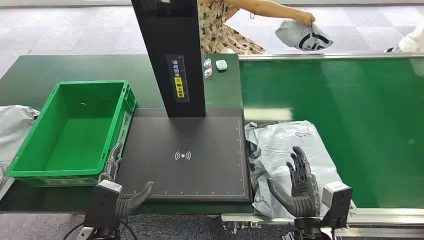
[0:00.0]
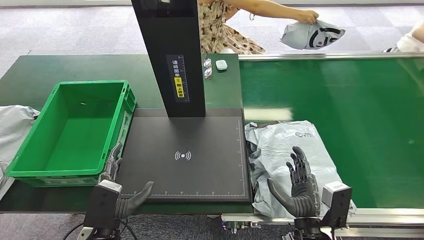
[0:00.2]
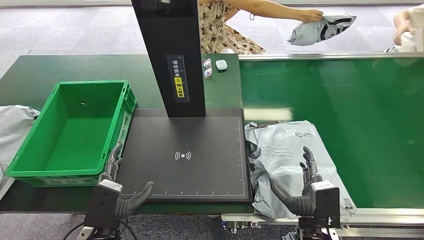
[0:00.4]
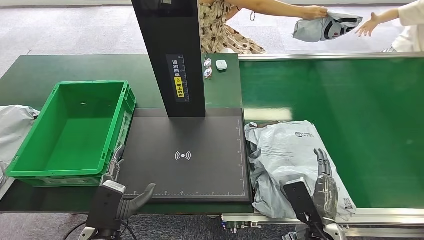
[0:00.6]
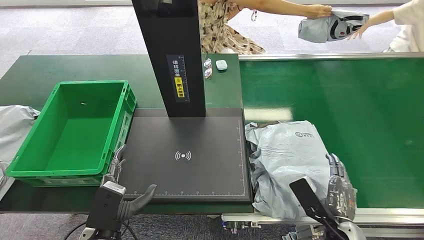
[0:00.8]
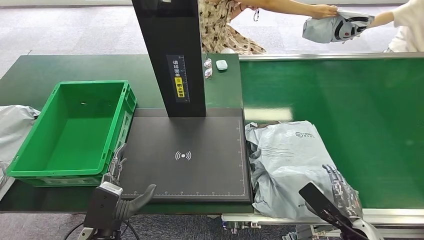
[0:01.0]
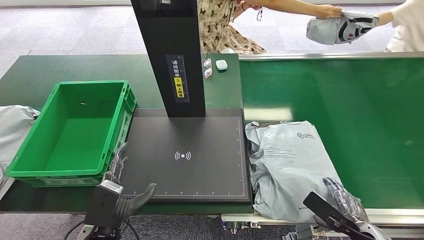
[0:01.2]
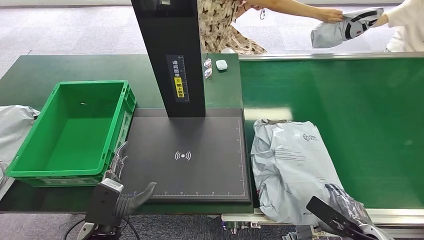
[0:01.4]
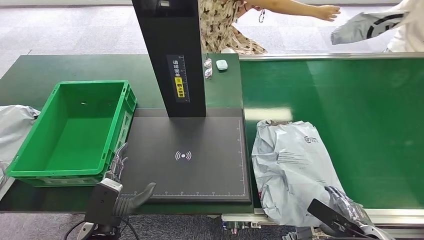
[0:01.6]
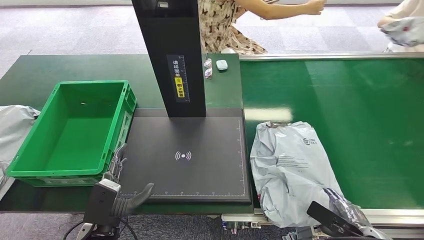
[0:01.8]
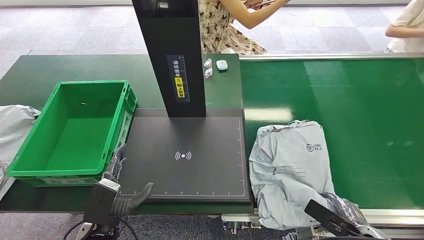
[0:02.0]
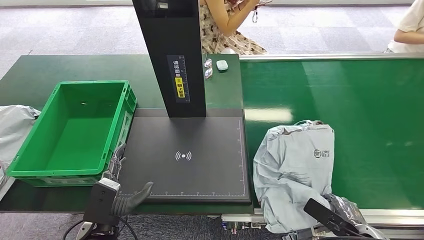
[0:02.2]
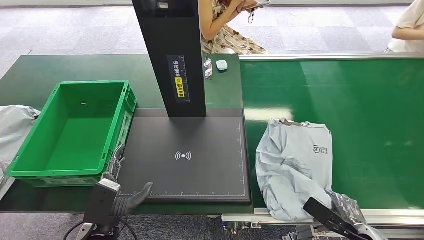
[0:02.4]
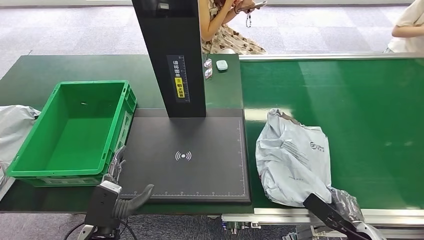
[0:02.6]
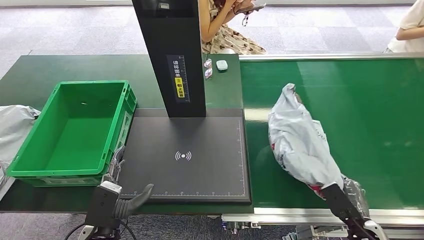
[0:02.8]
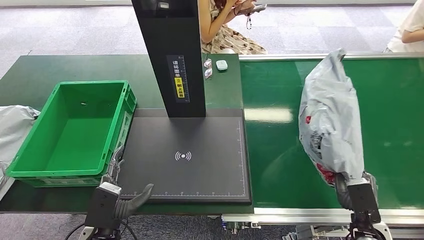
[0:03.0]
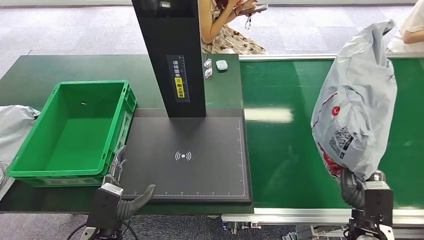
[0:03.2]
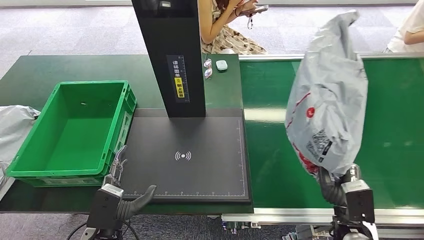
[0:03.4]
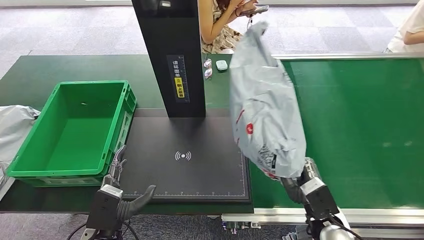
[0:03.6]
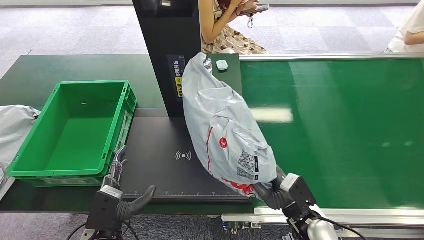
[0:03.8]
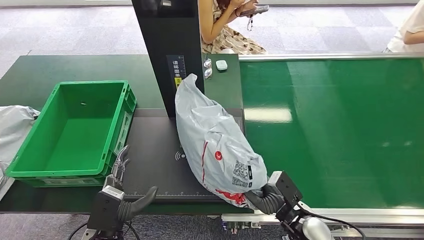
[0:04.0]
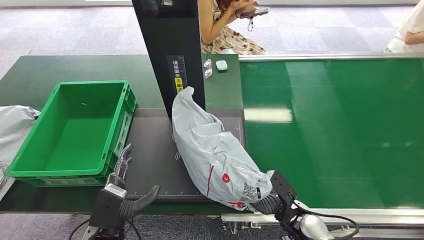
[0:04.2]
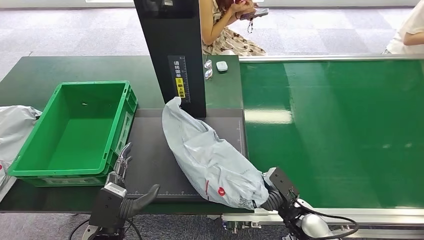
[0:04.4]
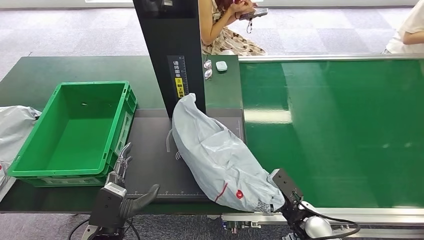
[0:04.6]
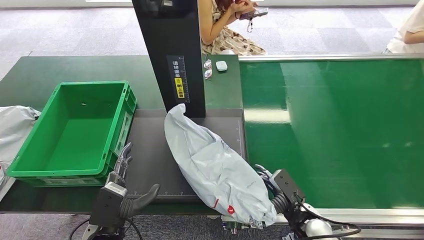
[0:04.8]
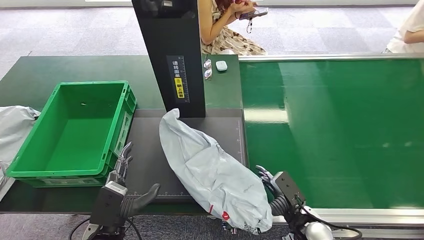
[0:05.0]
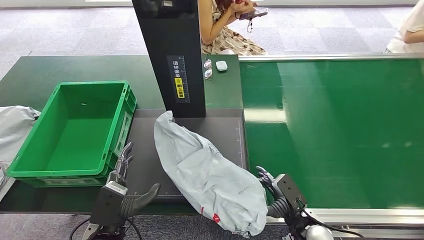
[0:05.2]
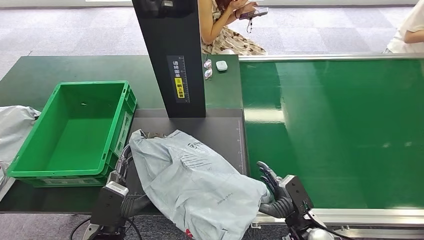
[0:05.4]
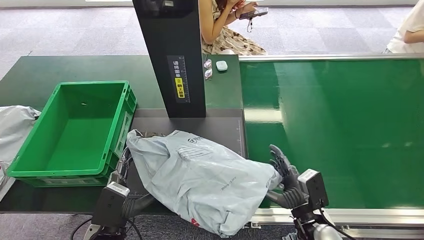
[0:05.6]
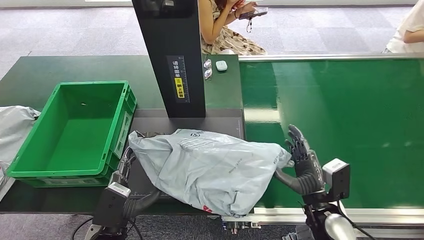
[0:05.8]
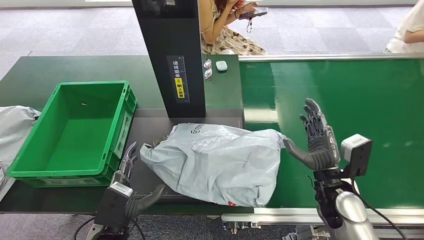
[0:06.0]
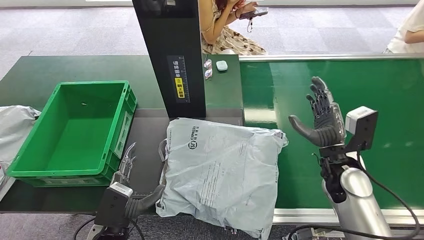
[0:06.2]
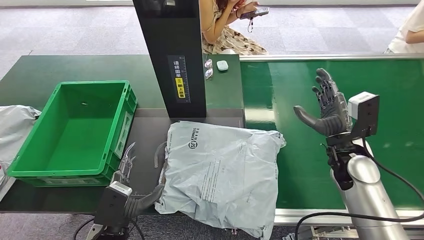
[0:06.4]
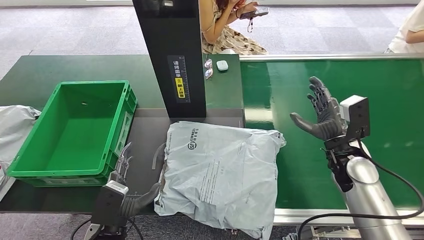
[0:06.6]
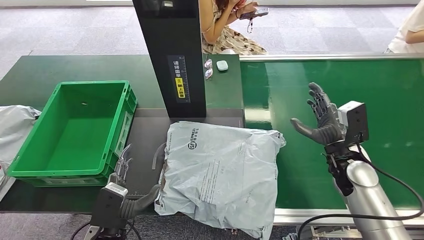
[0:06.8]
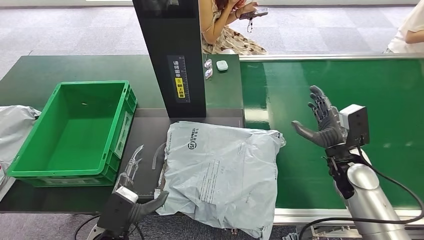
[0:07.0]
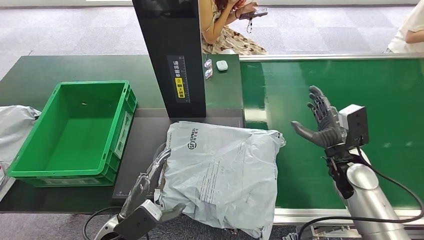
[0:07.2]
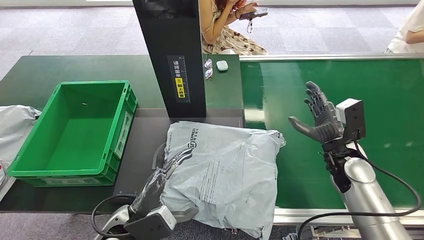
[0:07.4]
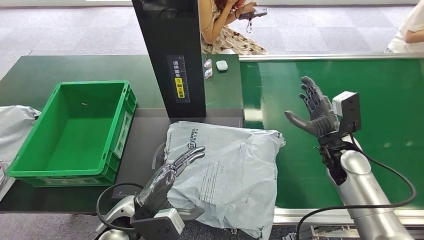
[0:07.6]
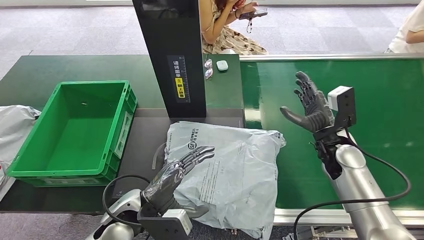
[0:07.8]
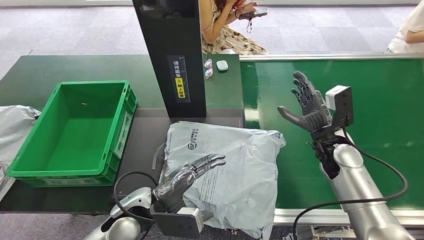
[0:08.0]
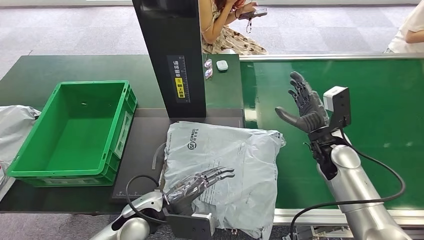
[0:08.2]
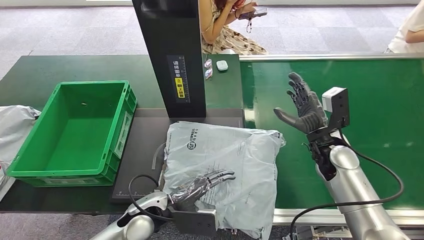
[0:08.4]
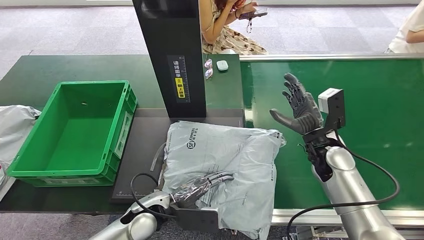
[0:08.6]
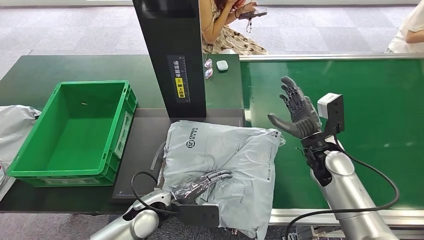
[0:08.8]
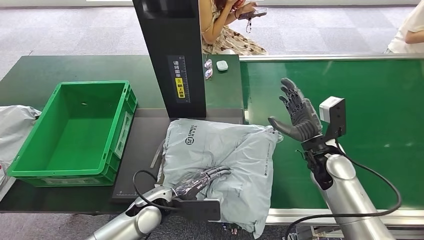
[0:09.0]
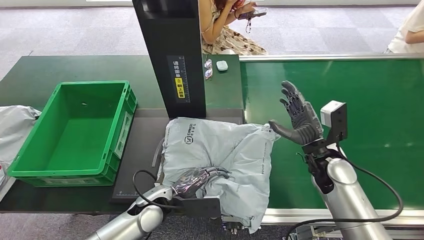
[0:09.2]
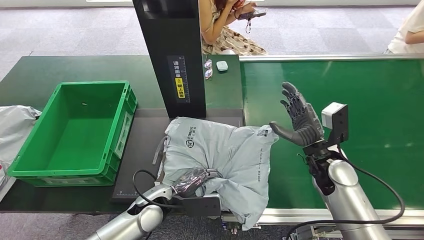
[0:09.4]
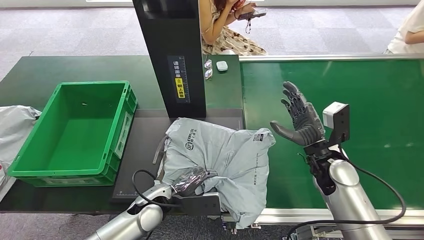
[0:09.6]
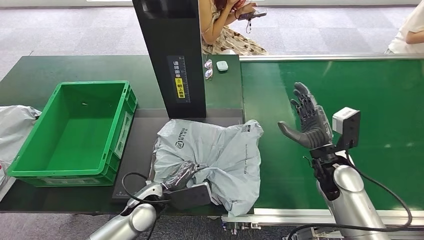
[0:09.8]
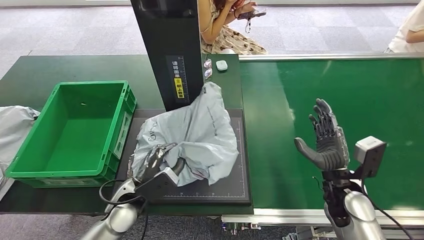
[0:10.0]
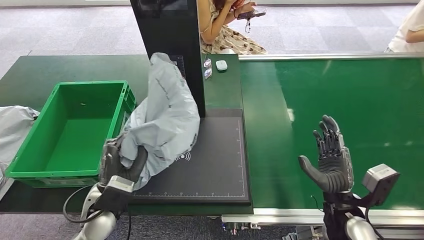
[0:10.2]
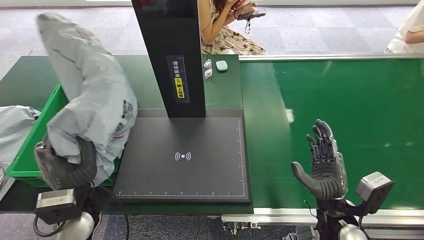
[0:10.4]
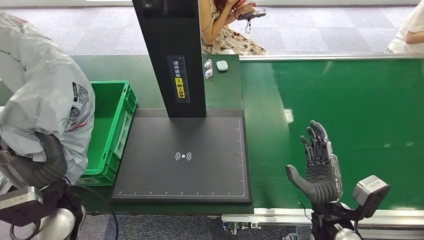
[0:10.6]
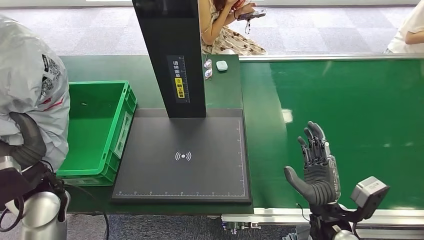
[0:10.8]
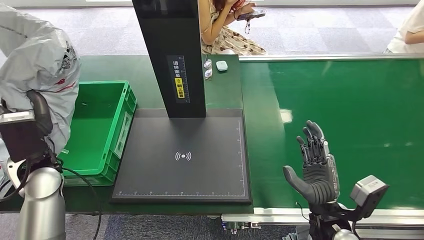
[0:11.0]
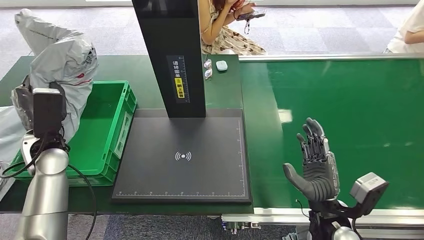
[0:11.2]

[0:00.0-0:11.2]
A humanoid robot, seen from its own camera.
Step, 0:00.0 to 0:03.2: Pick up the package from the conveyor belt.
Step, 0:03.4 to 0:06.8: Place the package onto the inbound machine.
Step, 0:07.2 to 0:10.6: Pick up the package from the inbound machine.
0:06.4 to 0:08.0: The left hand shifts some 10 cm upward and to the right.

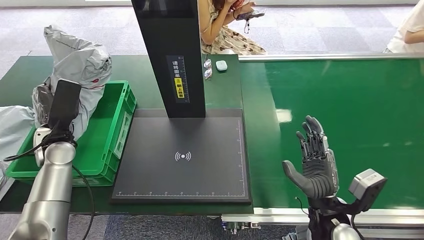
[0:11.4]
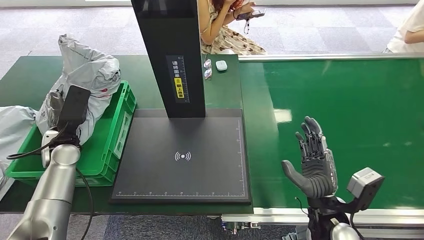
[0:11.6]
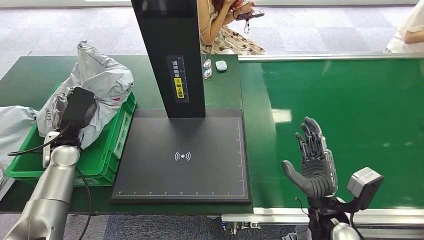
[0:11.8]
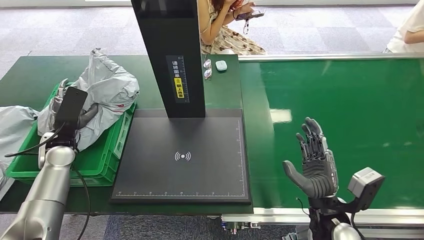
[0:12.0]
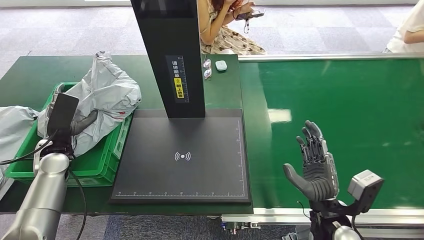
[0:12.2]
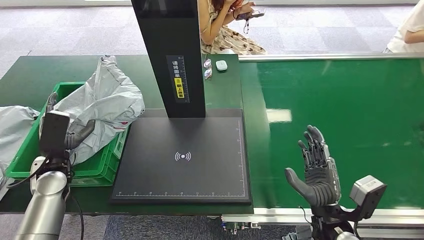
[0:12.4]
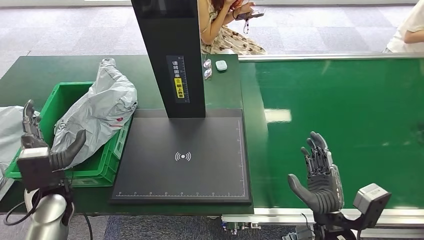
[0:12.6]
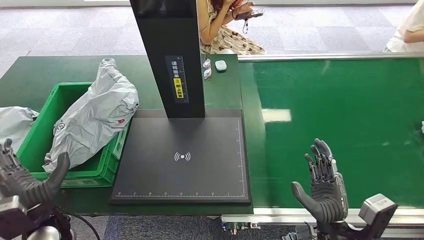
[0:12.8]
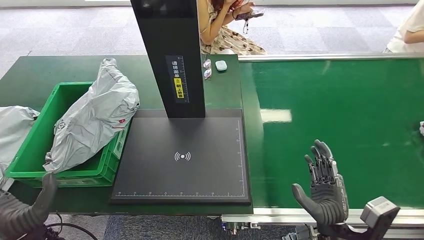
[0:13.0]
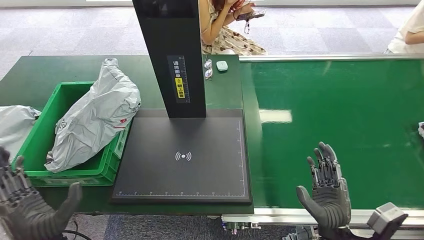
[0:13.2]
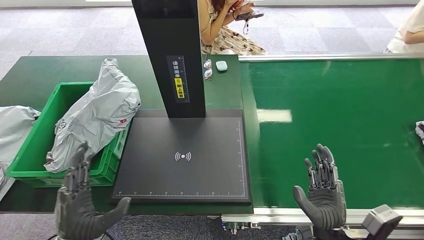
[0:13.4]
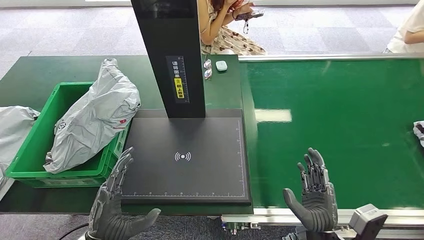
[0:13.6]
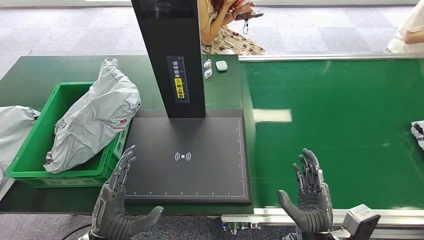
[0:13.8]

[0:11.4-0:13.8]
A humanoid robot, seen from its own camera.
Step, 0:11.4 to 0:13.8: Place the package into the parcel locker.
0:11.4 to 0:12.6: The left hand goes some 10 cm backward and downward.
0:12.6 to 0:13.8: The right hand moves roughly 5 cm, while the left hand travels to the right and backward by approximately 20 cm.

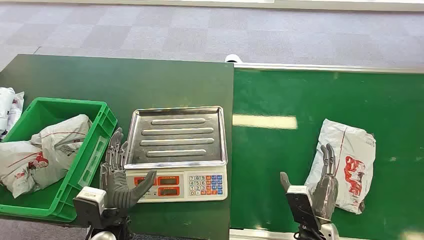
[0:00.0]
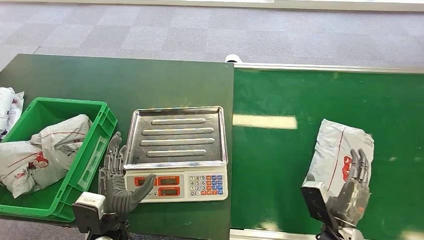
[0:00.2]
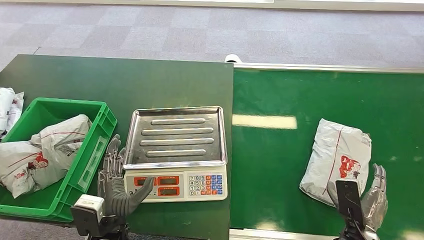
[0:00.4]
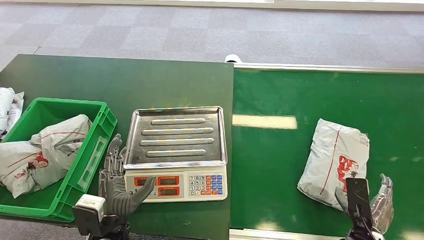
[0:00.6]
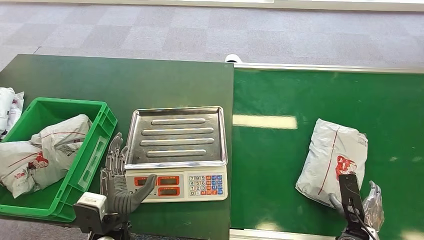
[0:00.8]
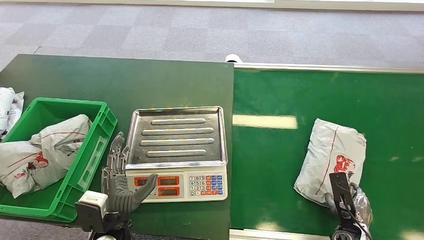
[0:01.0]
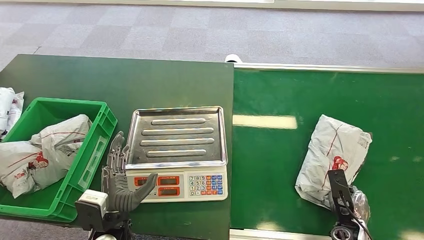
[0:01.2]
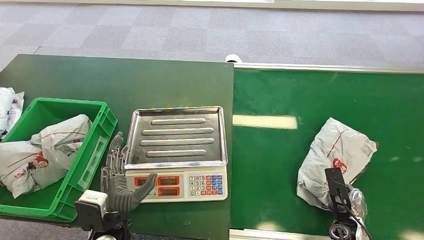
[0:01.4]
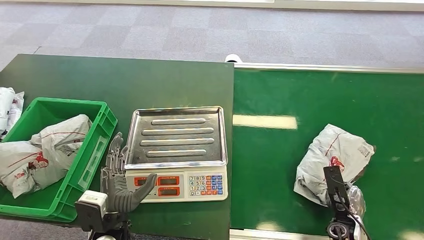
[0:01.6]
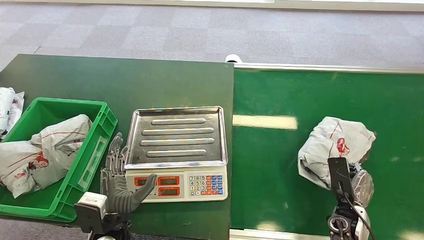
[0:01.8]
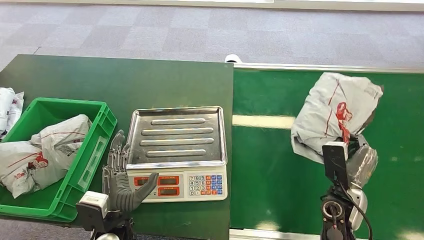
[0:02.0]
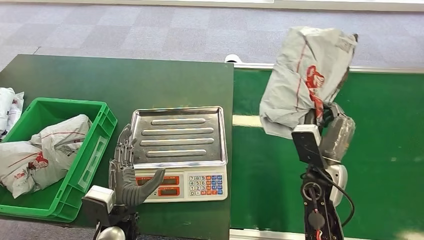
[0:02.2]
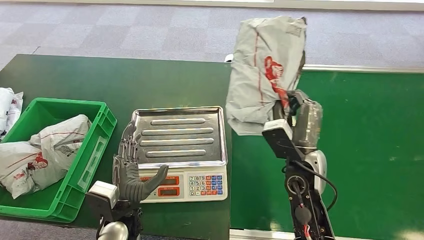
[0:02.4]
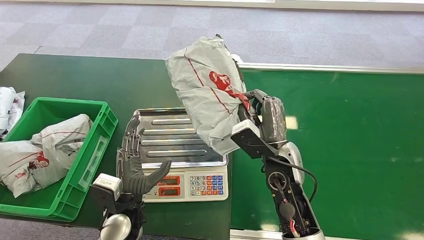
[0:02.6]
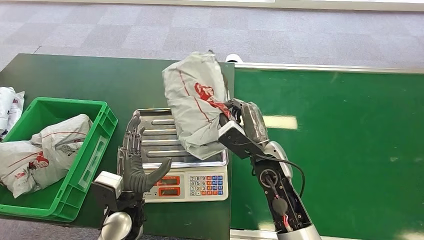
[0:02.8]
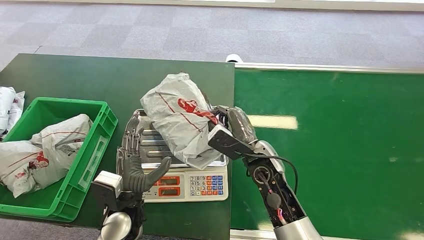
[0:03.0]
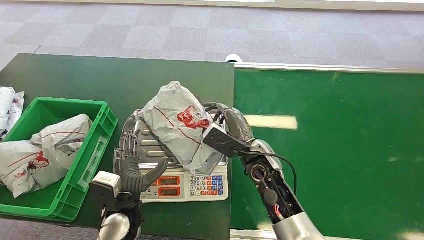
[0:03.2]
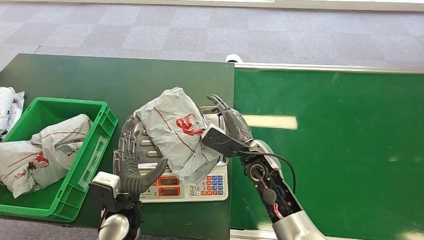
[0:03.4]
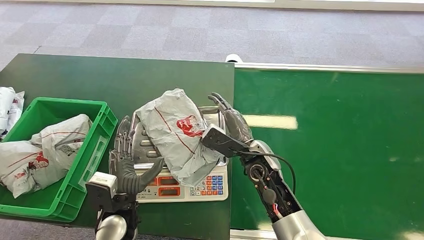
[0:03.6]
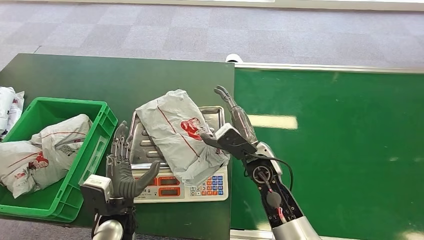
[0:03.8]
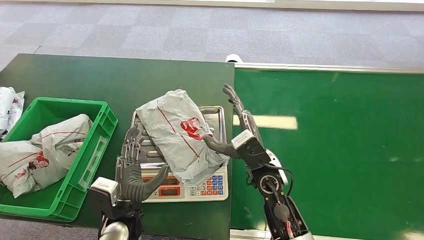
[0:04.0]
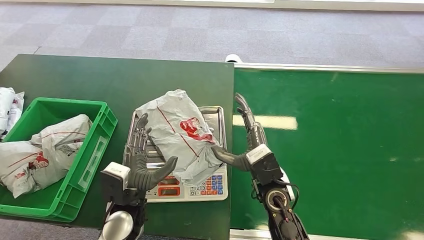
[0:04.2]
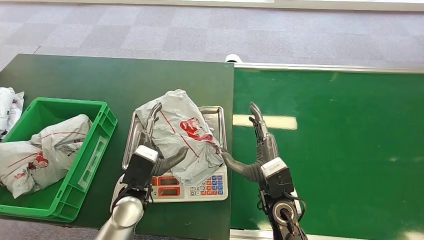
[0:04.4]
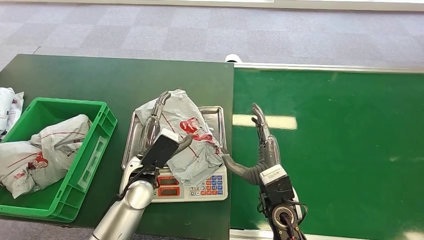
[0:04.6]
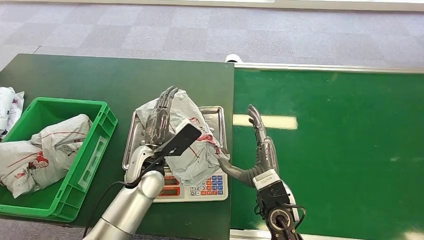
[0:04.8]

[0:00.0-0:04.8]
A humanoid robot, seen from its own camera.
Step, 0:00.0 to 0:02.2: Pick up the package from the conveyor belt.
Step, 0:02.4 to 0:04.0: Place the package onto the inbound machine.
0:01.6 to 0:03.2: The right hand moves to the left, upward and forward, approximately 30 cm.
0:03.2 to 0:04.8: The right hand heads backward, covering some 10 cm, while the left hand heads forward and upward, covering some 10 cm.
